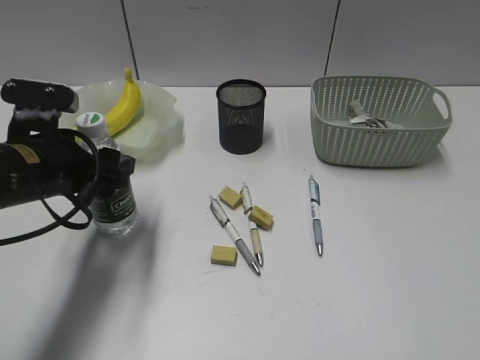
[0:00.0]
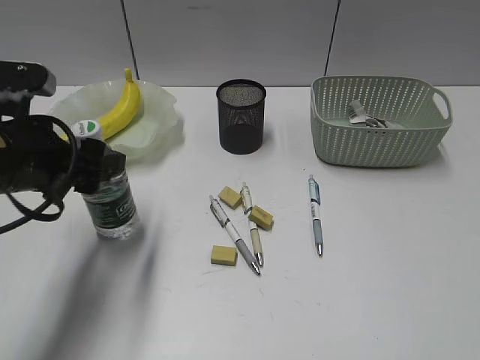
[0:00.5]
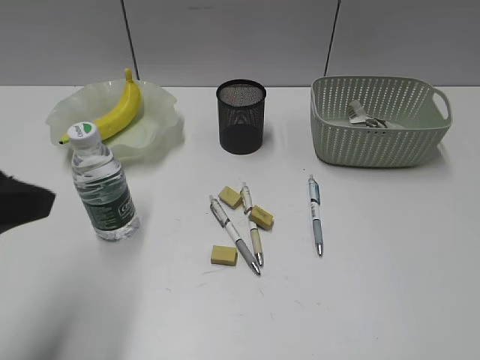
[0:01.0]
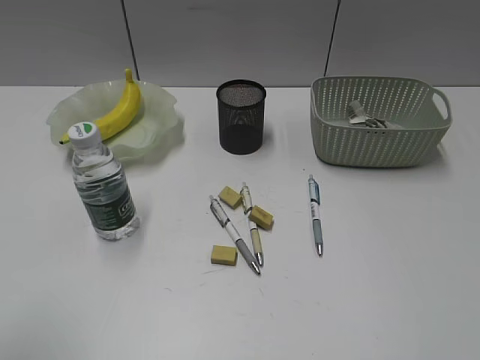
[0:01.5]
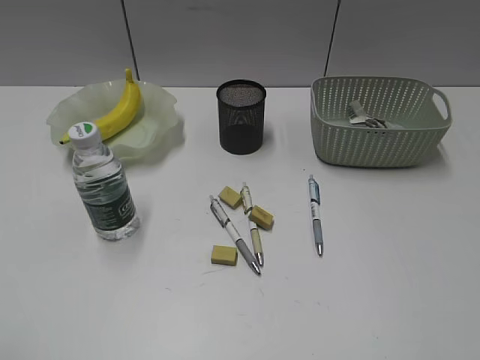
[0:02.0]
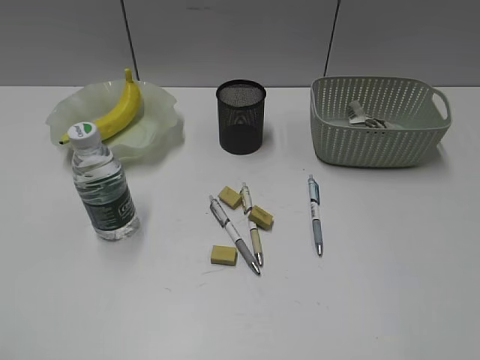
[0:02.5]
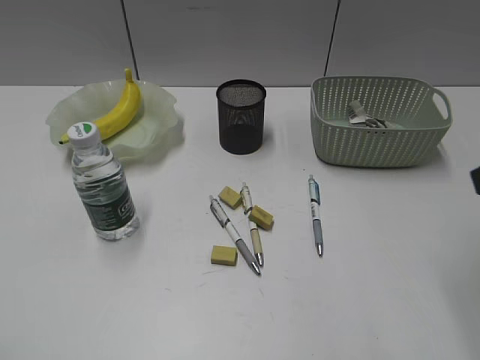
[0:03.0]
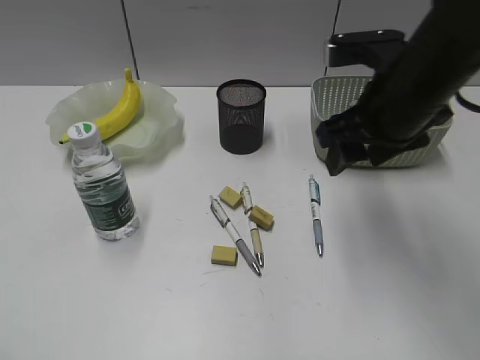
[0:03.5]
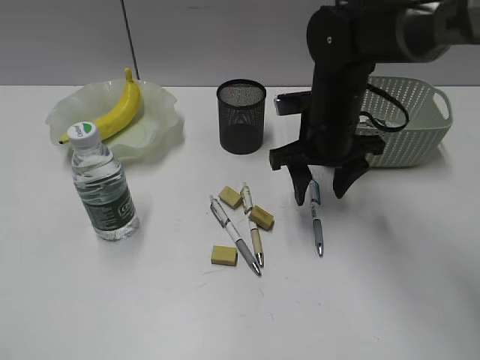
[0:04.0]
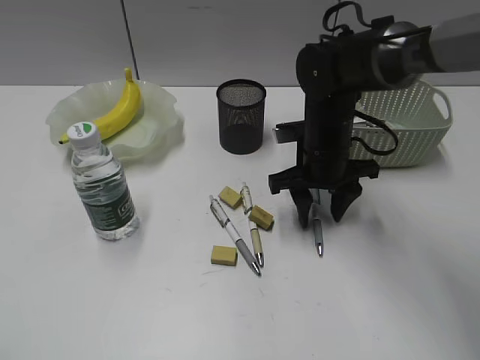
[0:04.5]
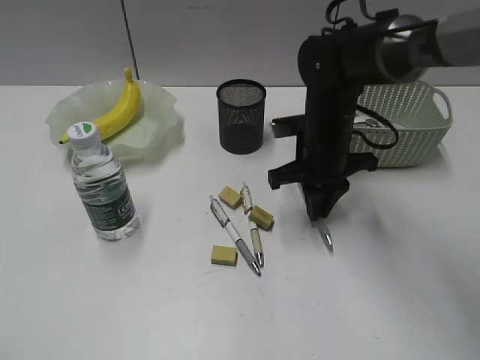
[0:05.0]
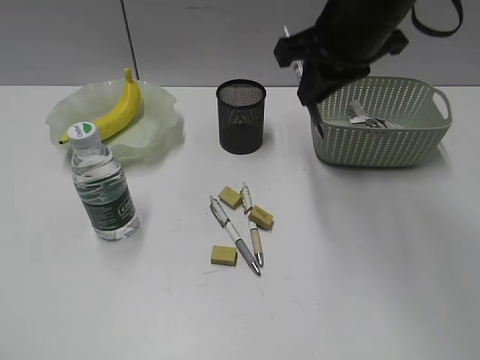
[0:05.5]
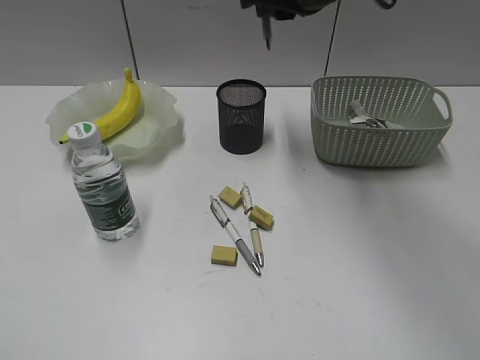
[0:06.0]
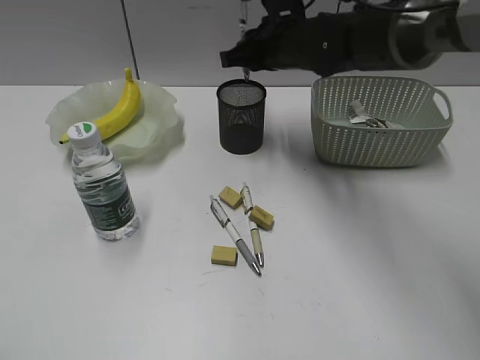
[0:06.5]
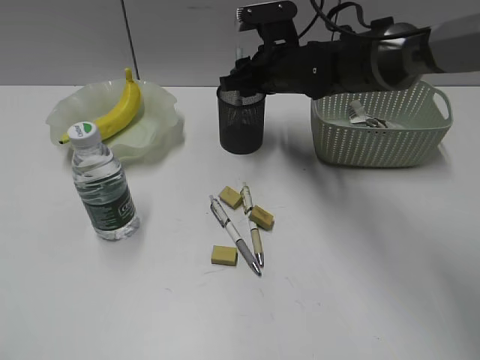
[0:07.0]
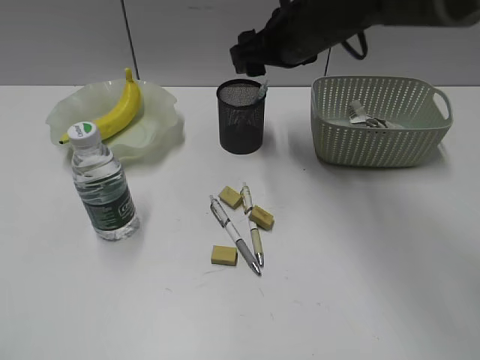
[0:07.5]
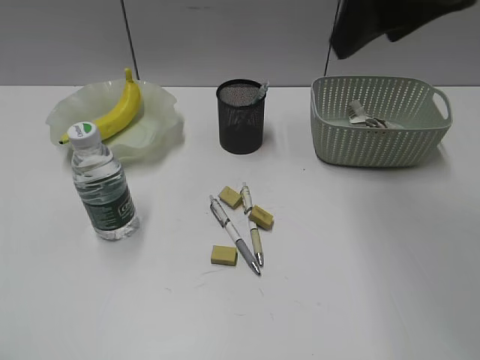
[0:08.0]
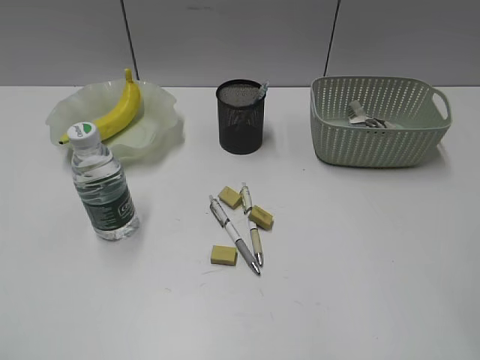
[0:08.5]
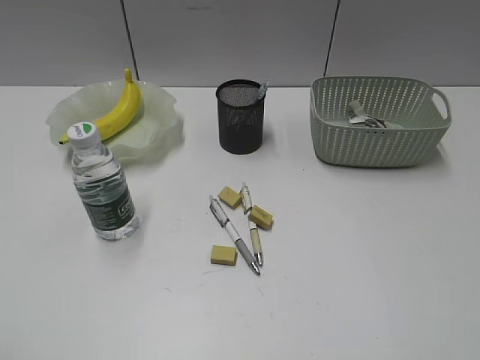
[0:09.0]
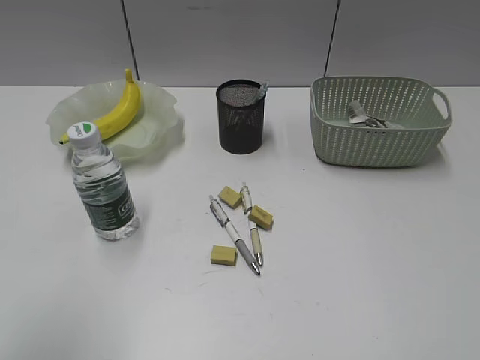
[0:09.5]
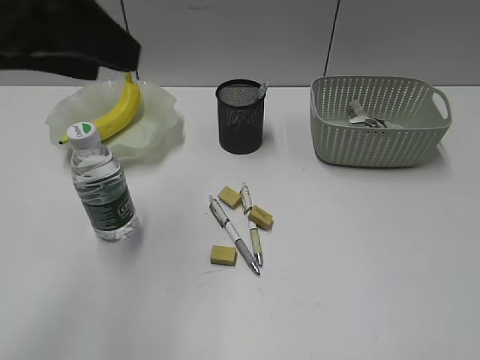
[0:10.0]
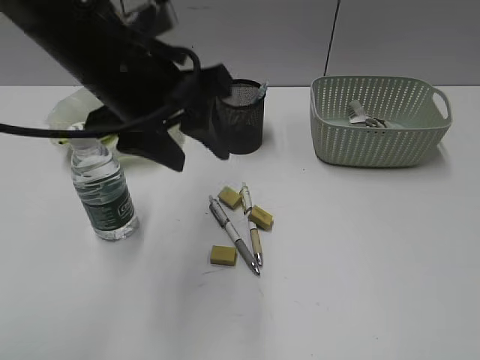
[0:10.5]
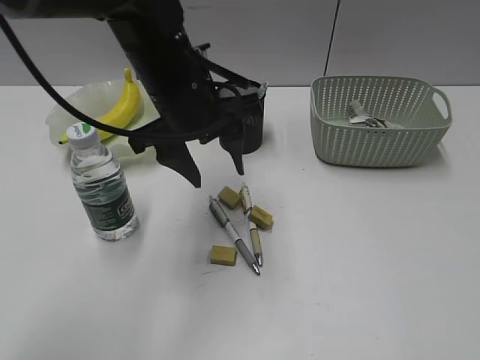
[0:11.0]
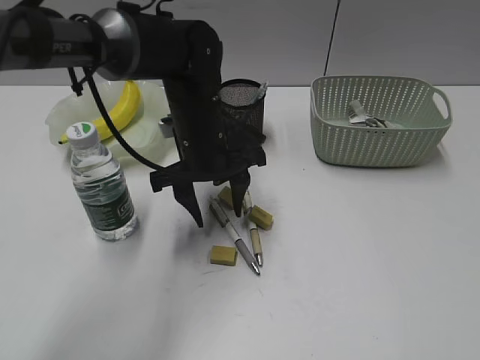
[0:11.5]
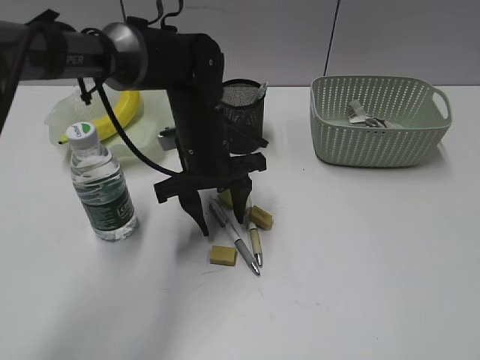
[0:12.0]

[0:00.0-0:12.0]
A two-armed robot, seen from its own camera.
Step, 1.0 to 4.5 s: Grasp the blue pen with right gripper.
Step, 5.0 to 7.0 s: Place the blue pen in pen holder with right gripper.
0.0 to 2.0 s: The left gripper heads backward, upward and to the left, covering approximately 30 cm.
2.0 to 4.0 s: The right gripper heads forward and to the left, covering approximately 40 cm.
4.0 to 6.0 s: The right gripper heads upward, covering about 15 cm, and closes its fingers.
6.0 to 8.0 s: The right gripper is displaced backward and to the right by about 10 cm, reaches roughly 15 cm downward, then returns, and opens.
8.0 to 10.0 s: The left gripper travels forward and to the right by approximately 25 cm. Meanwhile the right gripper goes some 35 cm backward and to the right.
10.0 to 12.0 s: The left gripper is displaced downward, to the right and forward by roughly 30 cm.

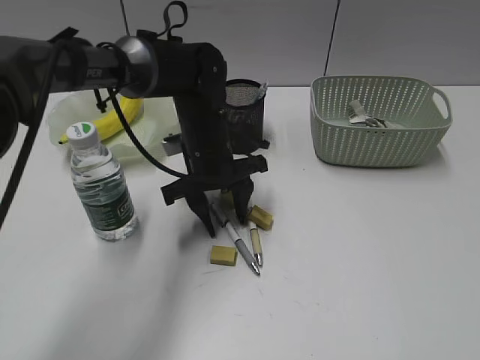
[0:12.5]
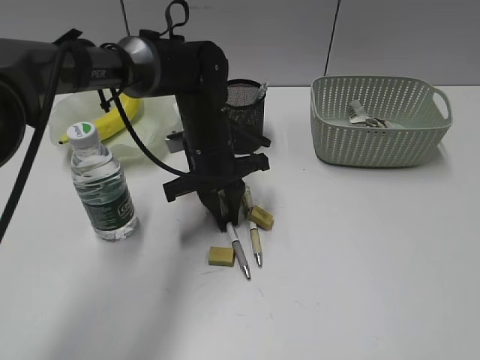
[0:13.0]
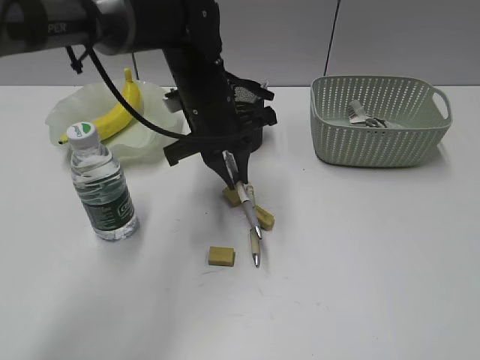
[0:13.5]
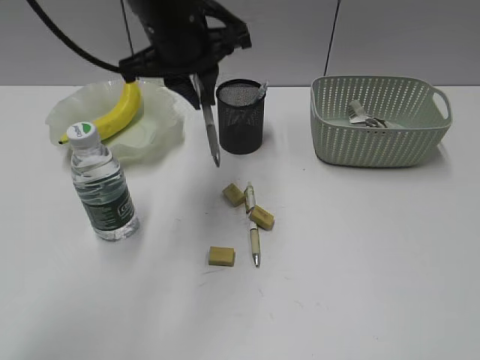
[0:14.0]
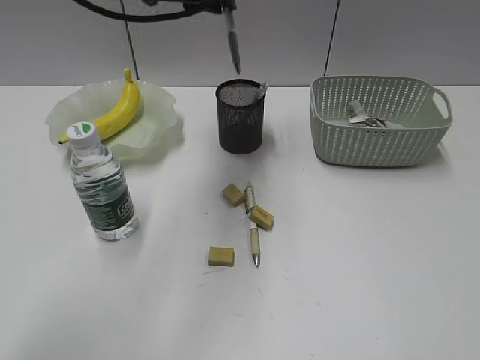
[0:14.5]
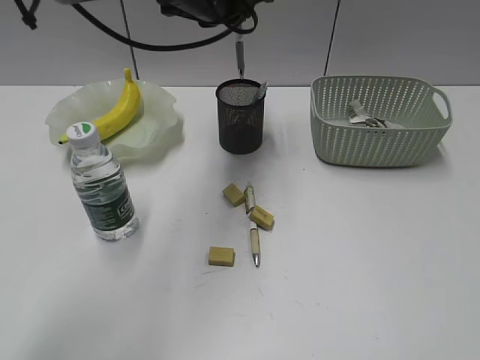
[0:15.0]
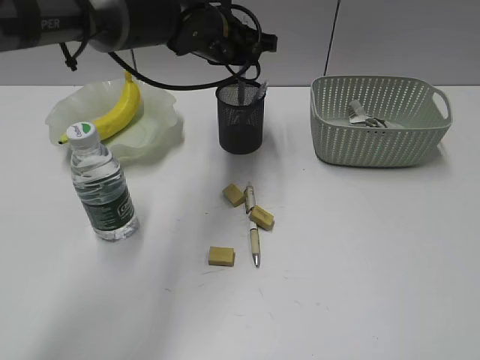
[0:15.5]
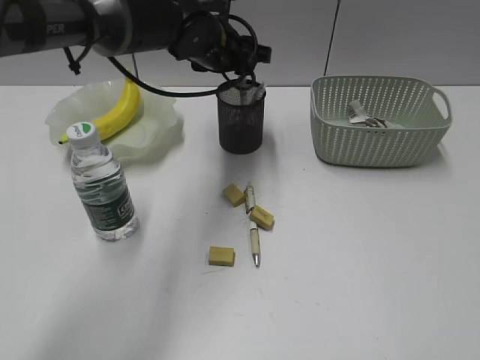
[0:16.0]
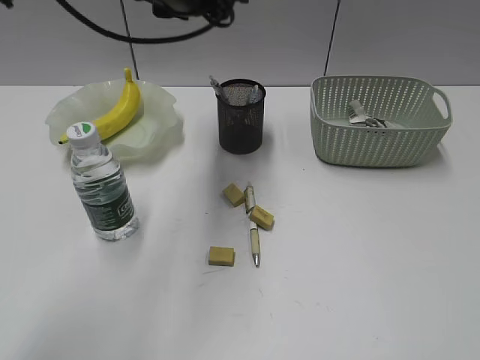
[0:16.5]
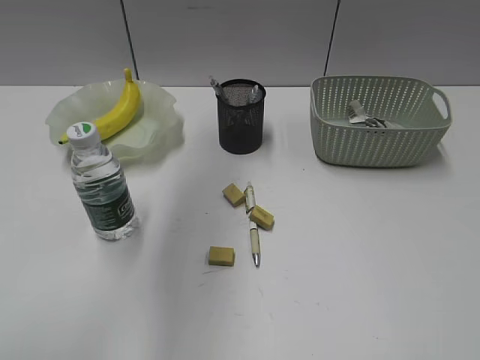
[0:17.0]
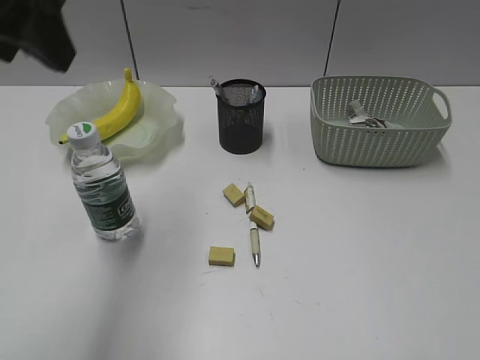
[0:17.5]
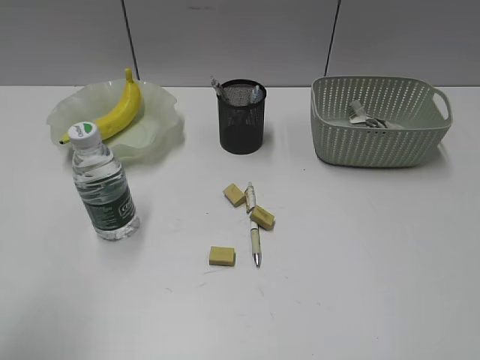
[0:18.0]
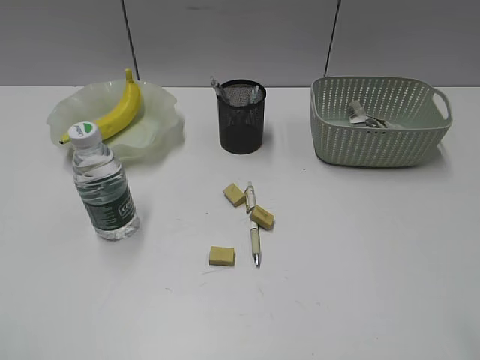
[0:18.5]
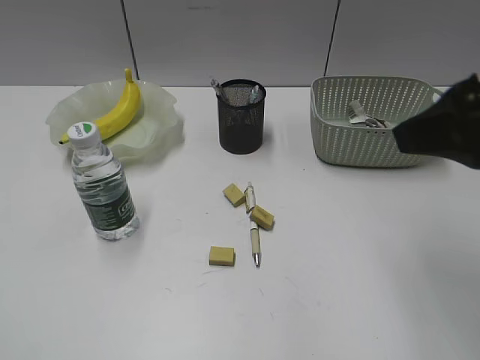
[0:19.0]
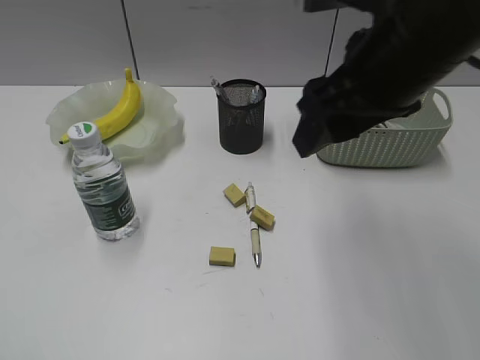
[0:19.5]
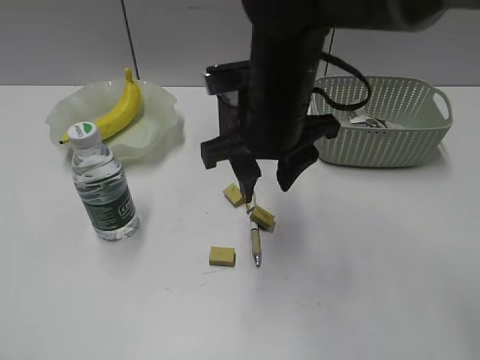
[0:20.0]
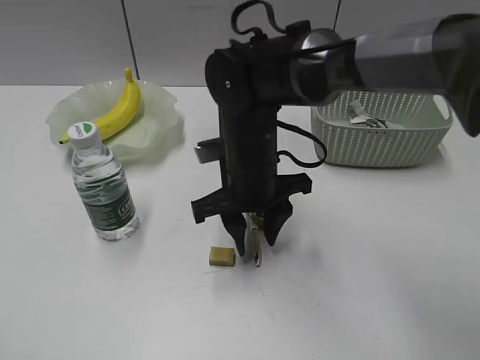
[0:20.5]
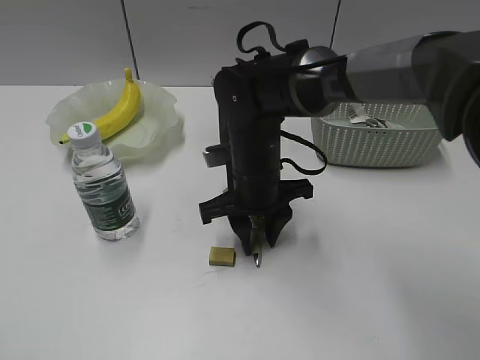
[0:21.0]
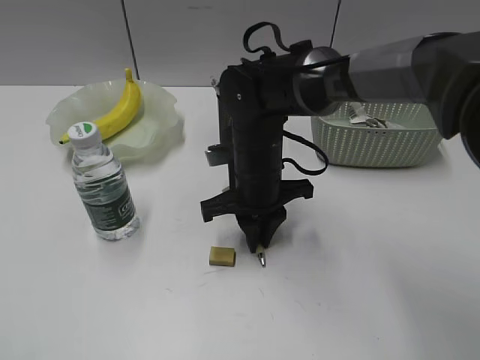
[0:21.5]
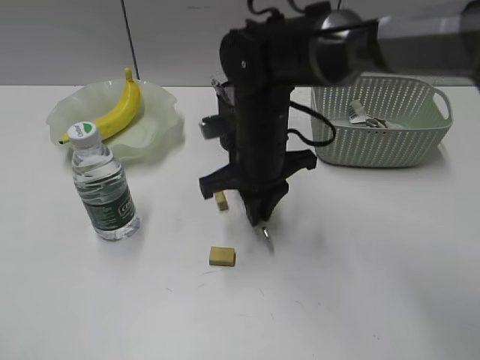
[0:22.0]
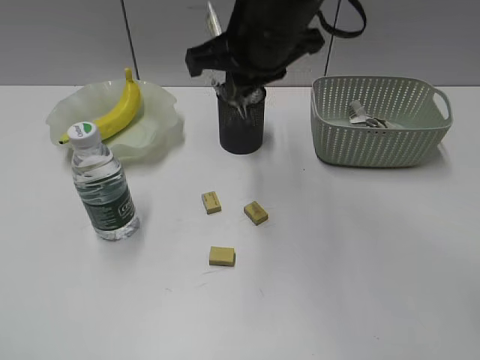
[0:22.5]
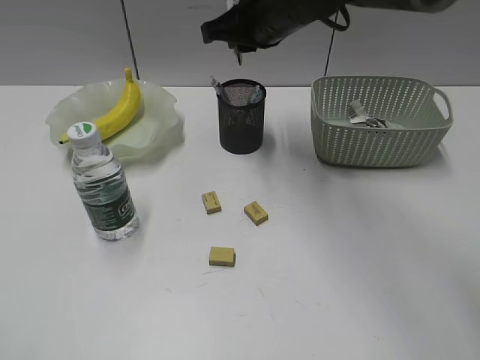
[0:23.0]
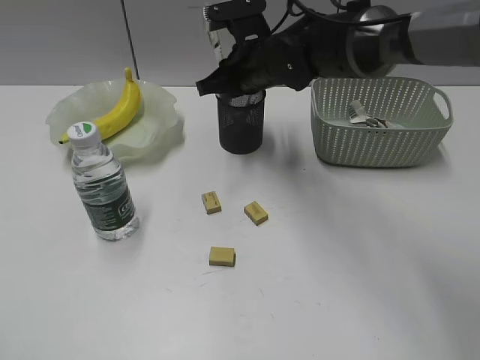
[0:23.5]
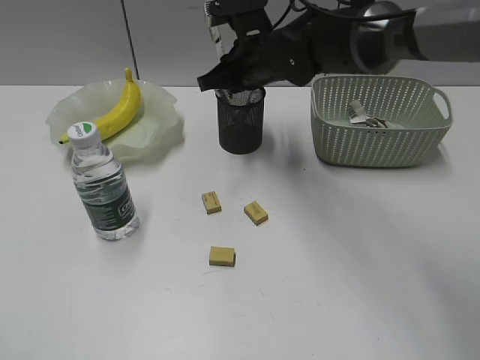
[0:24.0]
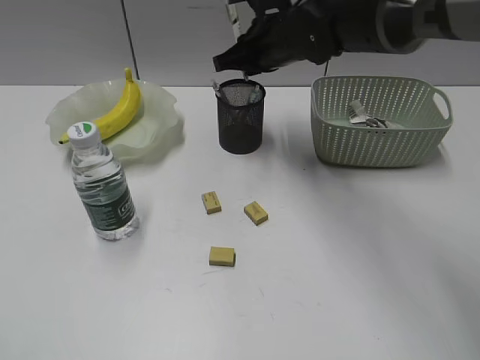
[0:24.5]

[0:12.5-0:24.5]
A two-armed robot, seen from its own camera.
Step, 13.5 to 16.0 s: Place the gray pen in pen holder with left gripper.
Step, 16.5 to 21.0 s: Grasp the yellow pen with right gripper.
12.5 to 14.5 s: The left gripper is displaced upward by approximately 20 cm, and closes its fingers.
14.5 to 16.5 s: The left gripper reaches some 10 cm downward, then returns, and opens its fingers.
16.5 to 18.5 s: The left gripper goes roughly 50 cm backward and to the left. The right gripper goes roughly 5 cm forward.
18.5 to 20.5 s: The right gripper is displaced to the left, forward and downward by approximately 40 cm, and closes its fingers.
20.5 to 22.5 s: The right gripper is displaced upward by some 15 cm, and closes its fingers.
22.5 to 24.5 s: The right gripper travels forward and downward by some 15 cm.

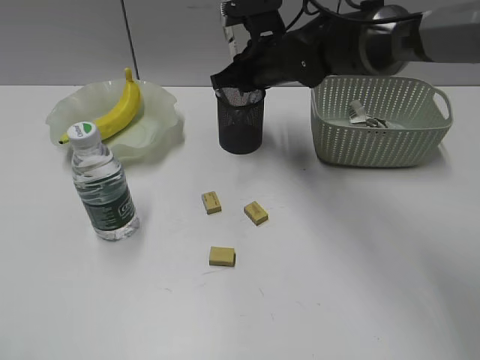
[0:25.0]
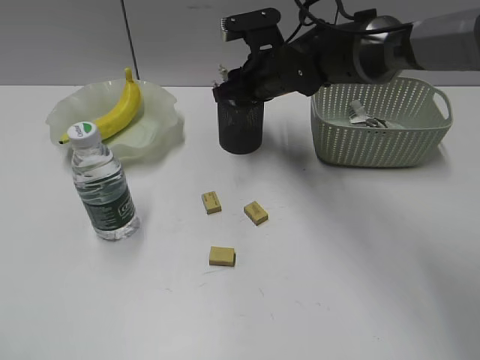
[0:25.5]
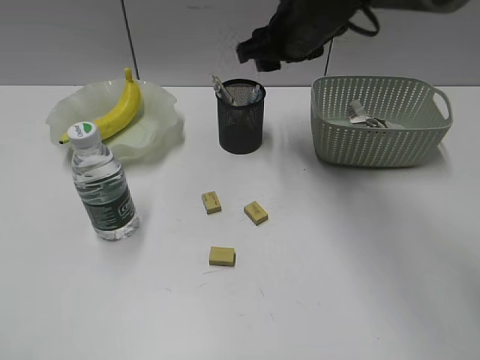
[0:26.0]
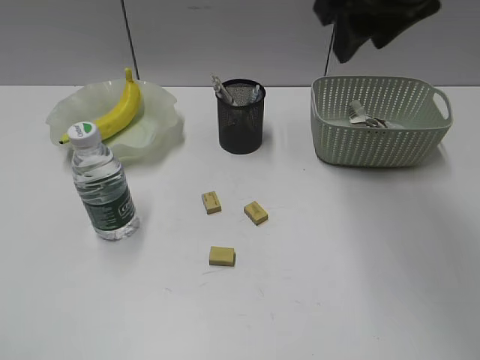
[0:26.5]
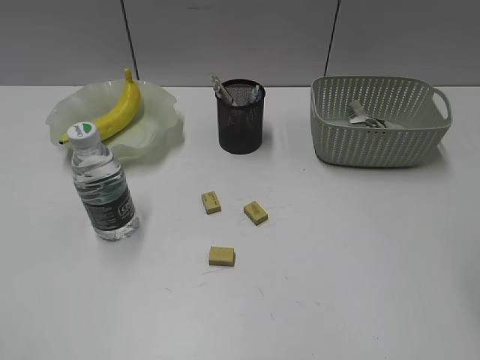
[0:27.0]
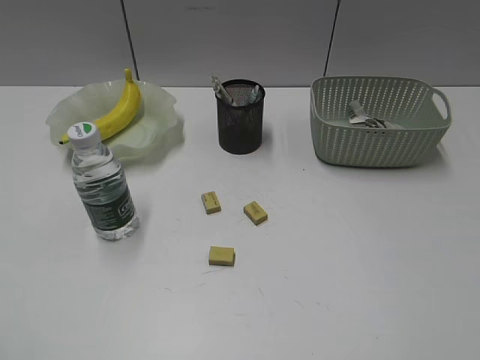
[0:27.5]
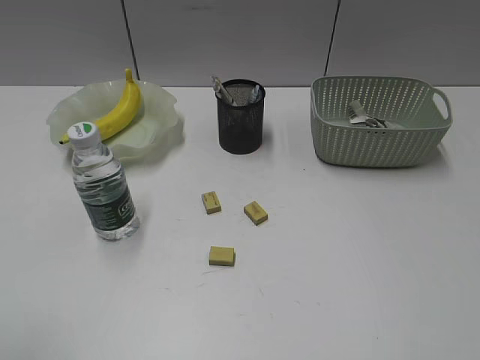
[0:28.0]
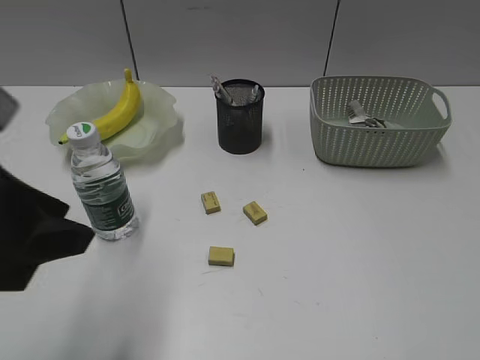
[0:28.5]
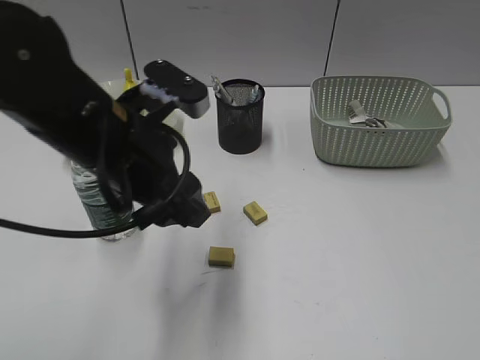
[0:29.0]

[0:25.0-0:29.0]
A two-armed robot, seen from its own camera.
25.0 to 27.0 s: The right gripper moves backward, upward and to the right, approximately 40 cm, and opens its fingers.
27.0 to 29.0 s: The right gripper moves backward, downward and to the right, some 20 cm; the left gripper goes some 35 cm forward and to the right.
